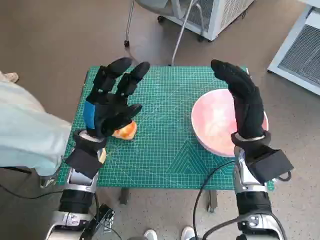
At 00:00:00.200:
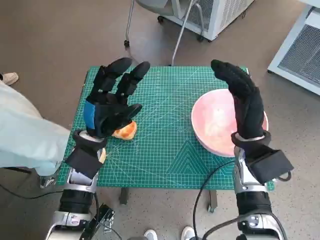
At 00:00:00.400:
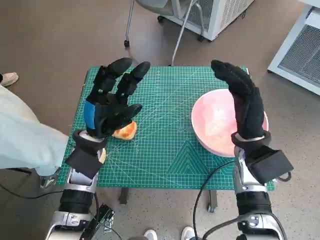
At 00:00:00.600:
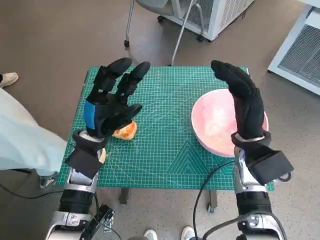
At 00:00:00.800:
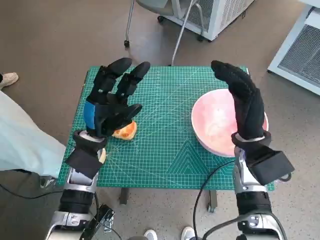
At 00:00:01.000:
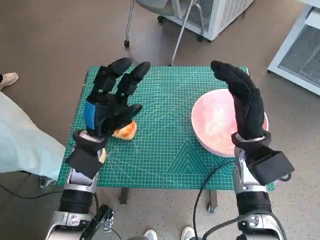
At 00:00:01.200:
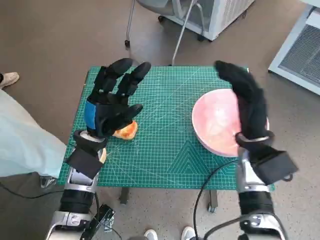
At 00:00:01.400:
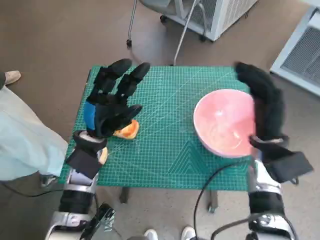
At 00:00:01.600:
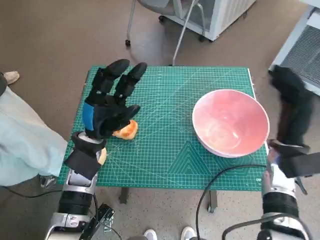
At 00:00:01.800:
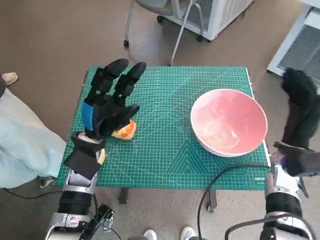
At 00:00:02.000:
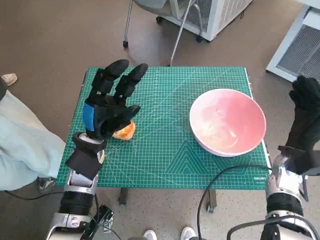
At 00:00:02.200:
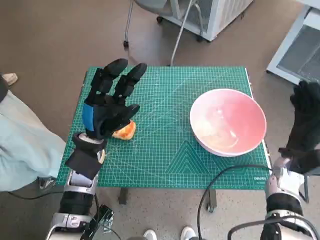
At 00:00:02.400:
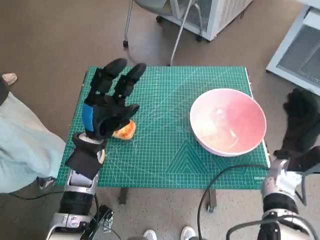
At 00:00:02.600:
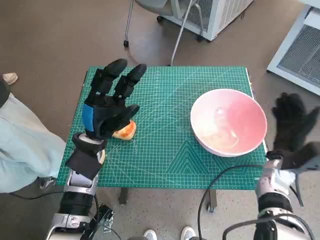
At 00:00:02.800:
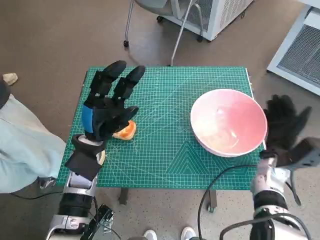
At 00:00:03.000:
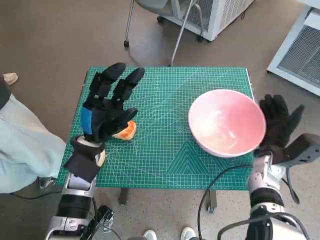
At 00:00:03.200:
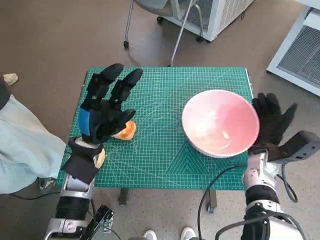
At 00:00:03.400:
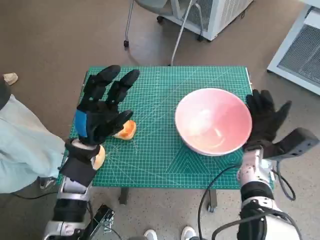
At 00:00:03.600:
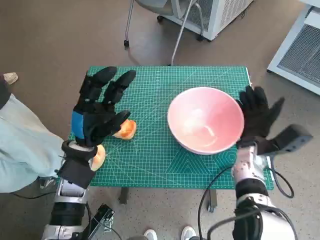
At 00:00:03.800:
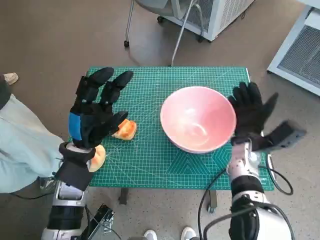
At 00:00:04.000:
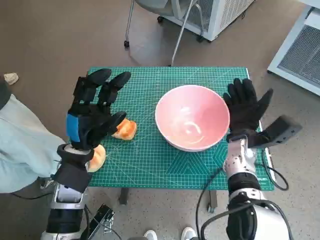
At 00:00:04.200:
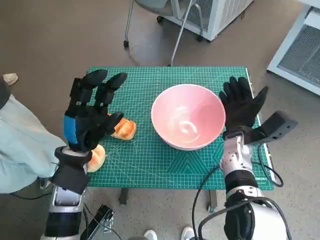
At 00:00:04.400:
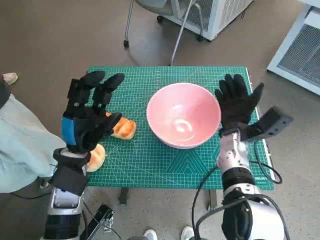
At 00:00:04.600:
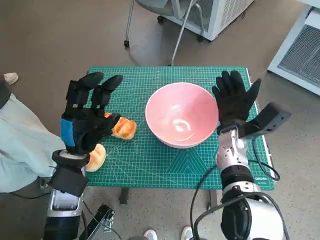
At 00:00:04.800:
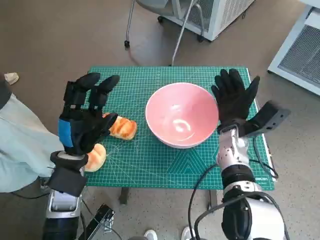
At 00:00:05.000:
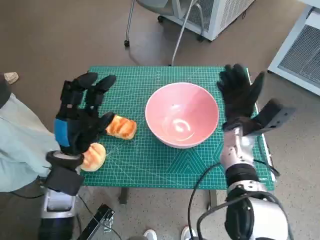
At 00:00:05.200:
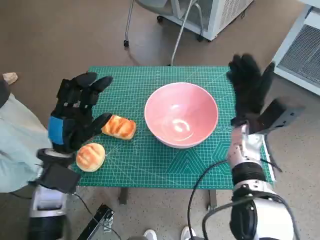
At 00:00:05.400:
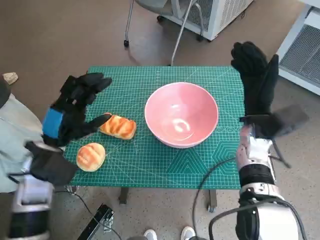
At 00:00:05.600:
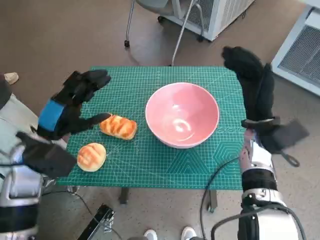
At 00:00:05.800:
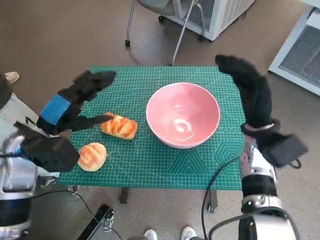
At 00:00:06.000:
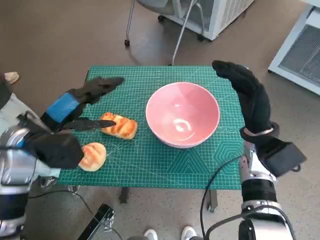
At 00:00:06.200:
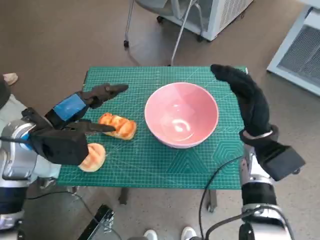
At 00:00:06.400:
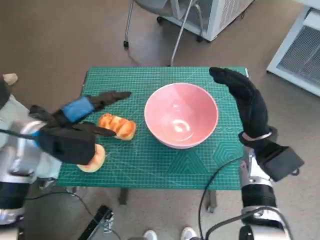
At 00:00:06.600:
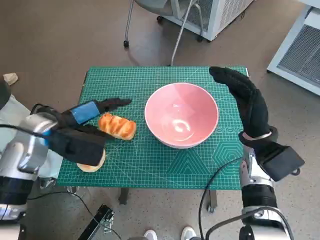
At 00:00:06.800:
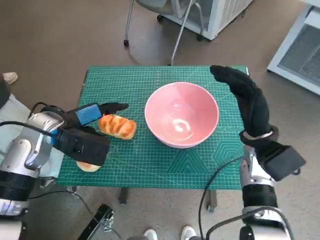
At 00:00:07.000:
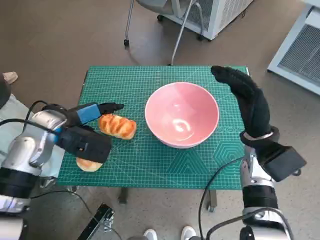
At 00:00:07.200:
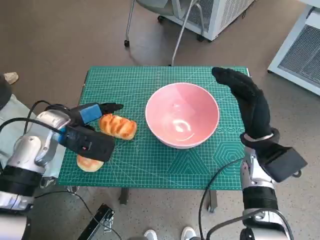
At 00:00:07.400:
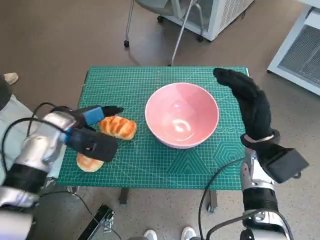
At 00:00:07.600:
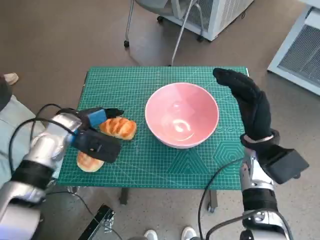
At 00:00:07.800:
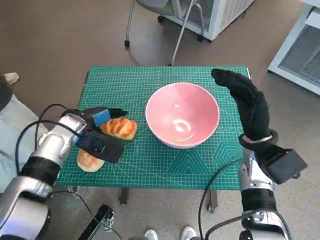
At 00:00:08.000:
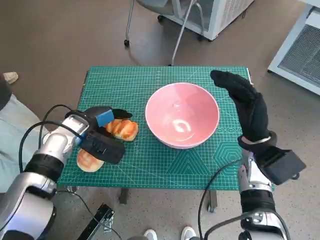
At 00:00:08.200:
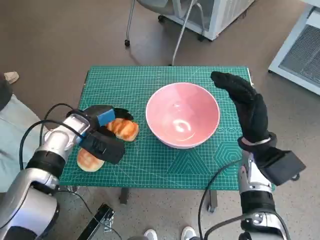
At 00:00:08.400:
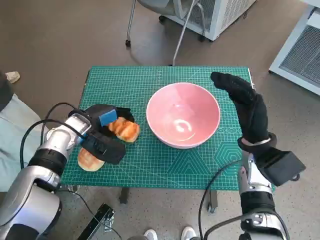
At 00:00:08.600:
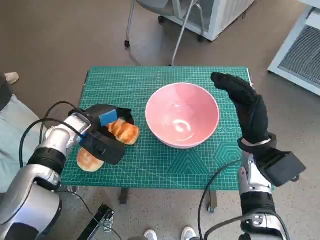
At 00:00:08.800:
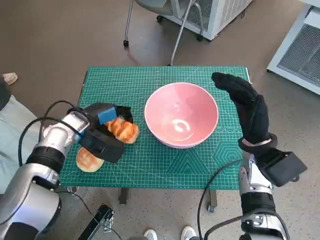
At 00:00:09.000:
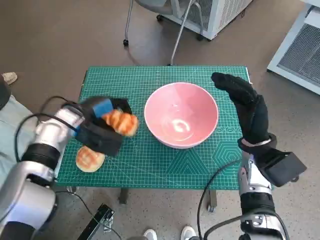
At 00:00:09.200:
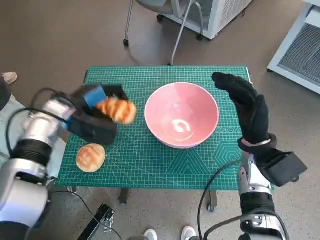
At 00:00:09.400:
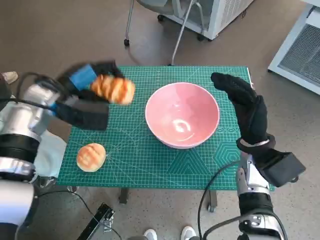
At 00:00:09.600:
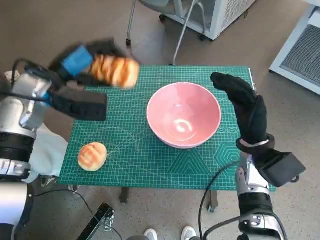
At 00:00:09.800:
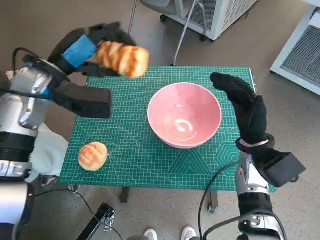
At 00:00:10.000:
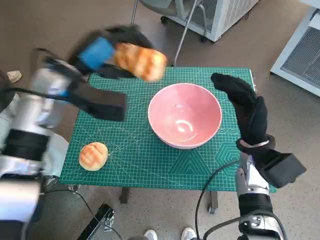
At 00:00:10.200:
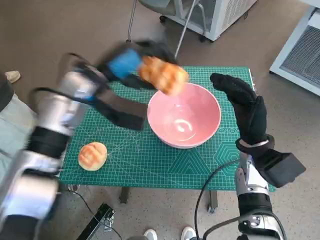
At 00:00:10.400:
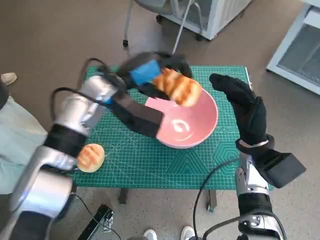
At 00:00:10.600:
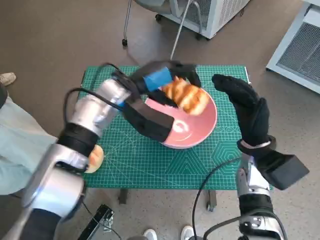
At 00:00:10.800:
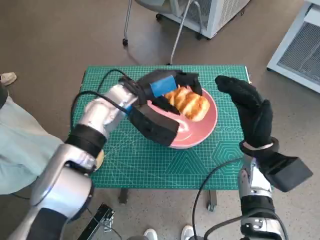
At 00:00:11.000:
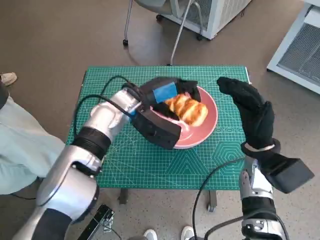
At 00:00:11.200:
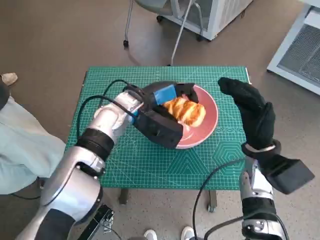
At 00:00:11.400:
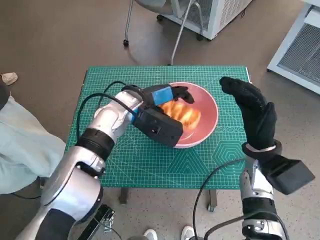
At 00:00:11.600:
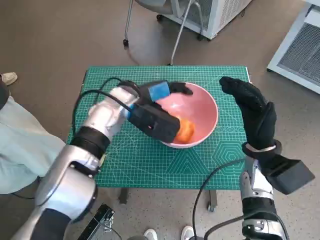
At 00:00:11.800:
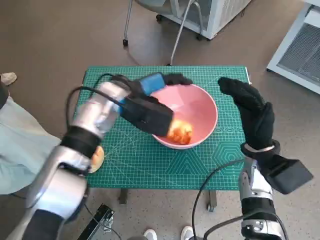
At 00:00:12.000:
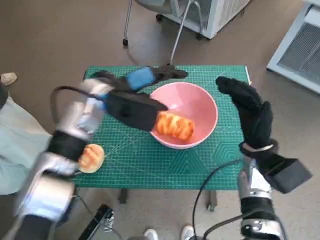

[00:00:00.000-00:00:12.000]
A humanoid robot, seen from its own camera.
Task of the whole recording: Push the bowl to the center of the table and put the bread into the bowl.
Step, 00:00:00.000 to 00:00:05.000: Move the pink bowl to the center of table with right hand.
Step, 00:00:05.200 to 00:00:08.000: Grasp the long bread with left hand.
Step, 00:00:08.200 to 00:00:11.800: Place the long bread in pink bowl with left hand.
00:00:01.600 to 00:00:03.000: The right hand travels downward by roughly 5 cm.
00:00:03.000 to 00:00:04.400: The right hand travels to the left by about 10 cm.
00:00:04.400 to 00:00:06.000: The right hand moves upward, about 5 cm, while the left hand moves upward and to the left, about 10 cm.
00:00:06.000 to 00:00:07.600: The left hand moves forward, roughly 5 cm.
00:00:07.600 to 00:00:09.000: The hands stay close to where they were, moving slightly.
00:00:09.000 to 00:00:10.400: The left hand shifts roughly 15 cm to the right and upward.

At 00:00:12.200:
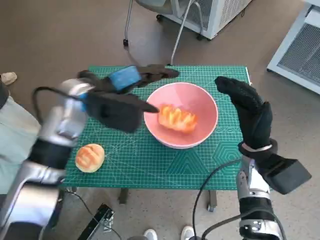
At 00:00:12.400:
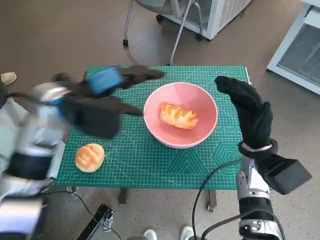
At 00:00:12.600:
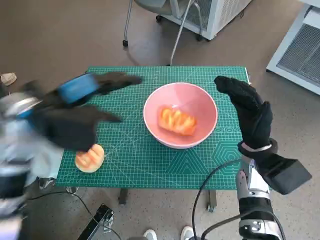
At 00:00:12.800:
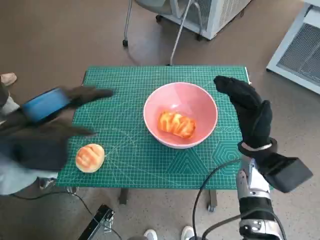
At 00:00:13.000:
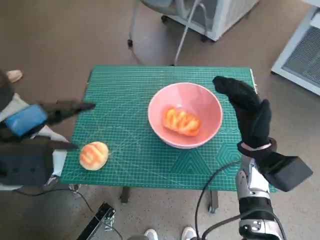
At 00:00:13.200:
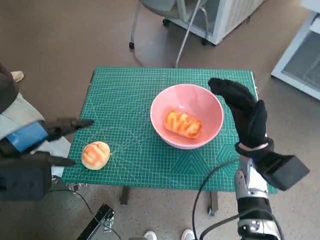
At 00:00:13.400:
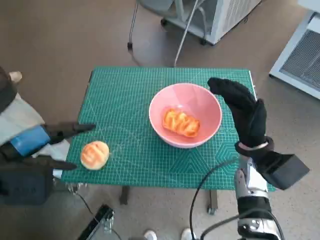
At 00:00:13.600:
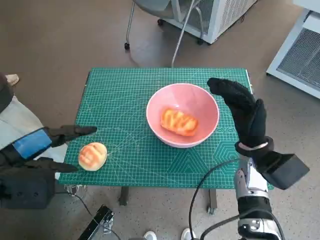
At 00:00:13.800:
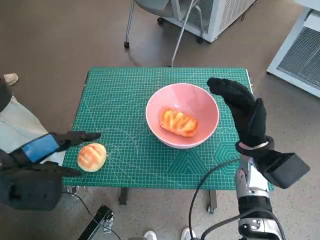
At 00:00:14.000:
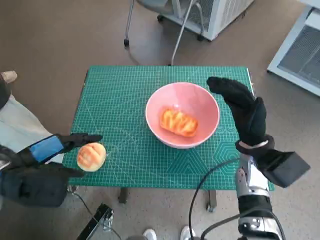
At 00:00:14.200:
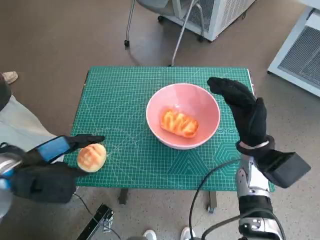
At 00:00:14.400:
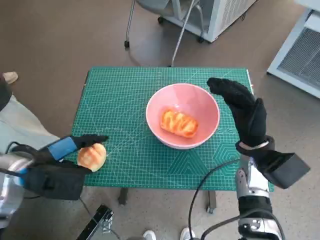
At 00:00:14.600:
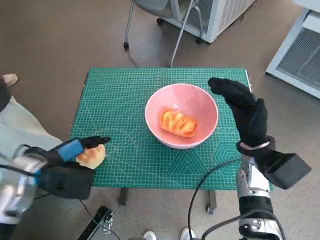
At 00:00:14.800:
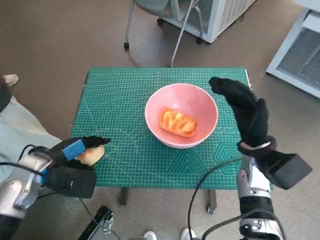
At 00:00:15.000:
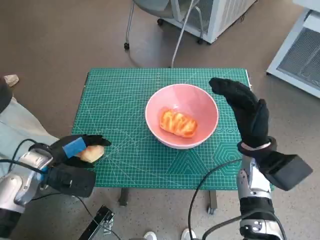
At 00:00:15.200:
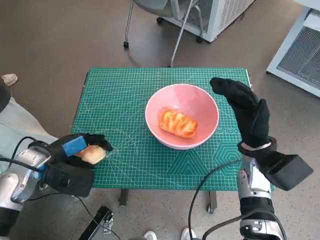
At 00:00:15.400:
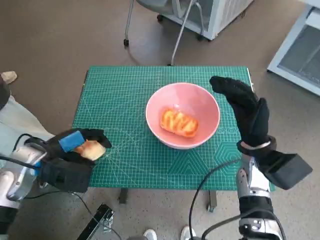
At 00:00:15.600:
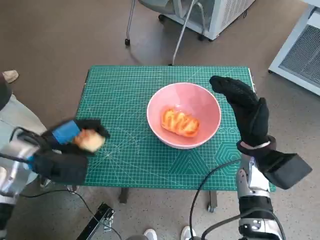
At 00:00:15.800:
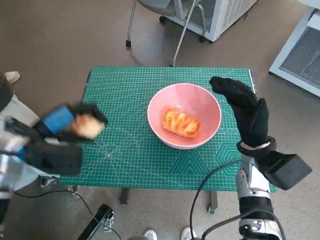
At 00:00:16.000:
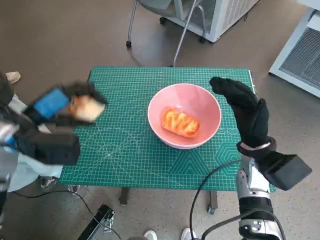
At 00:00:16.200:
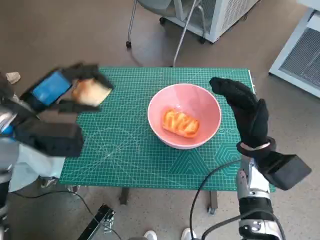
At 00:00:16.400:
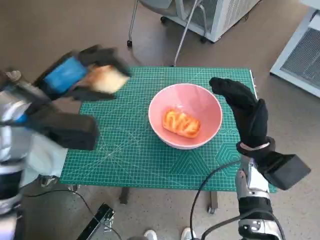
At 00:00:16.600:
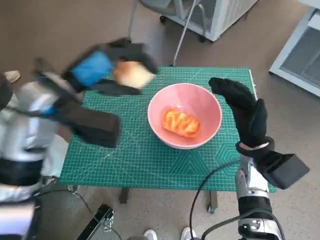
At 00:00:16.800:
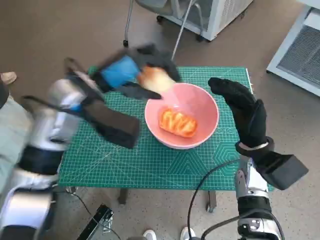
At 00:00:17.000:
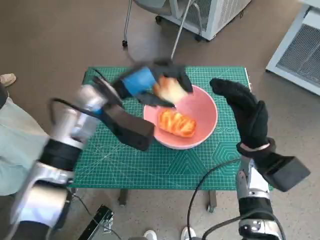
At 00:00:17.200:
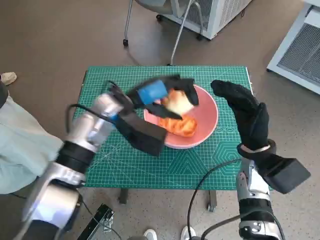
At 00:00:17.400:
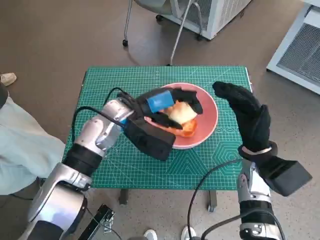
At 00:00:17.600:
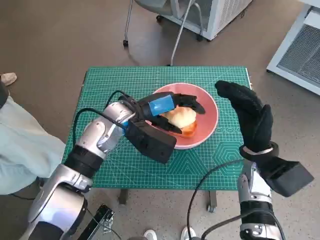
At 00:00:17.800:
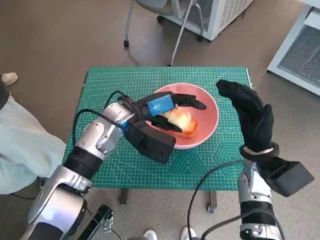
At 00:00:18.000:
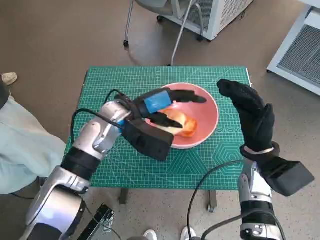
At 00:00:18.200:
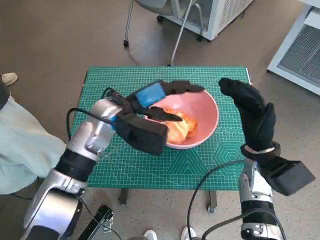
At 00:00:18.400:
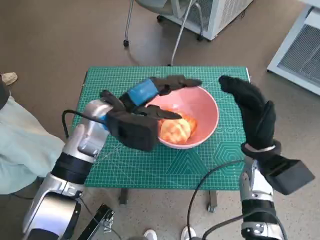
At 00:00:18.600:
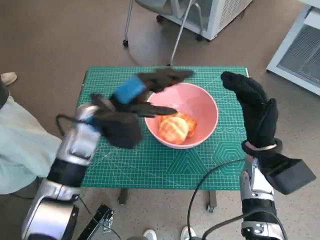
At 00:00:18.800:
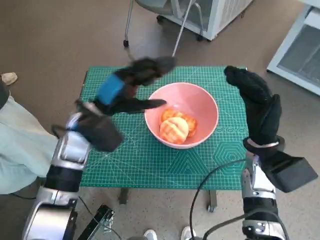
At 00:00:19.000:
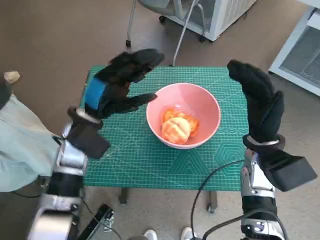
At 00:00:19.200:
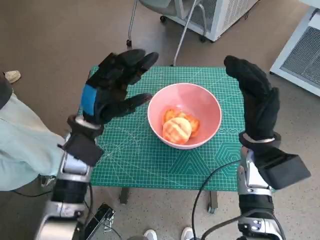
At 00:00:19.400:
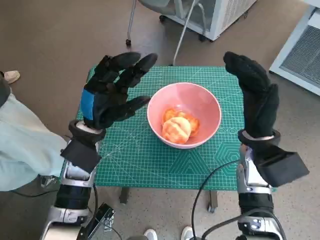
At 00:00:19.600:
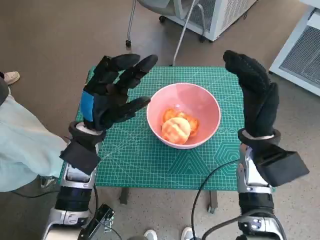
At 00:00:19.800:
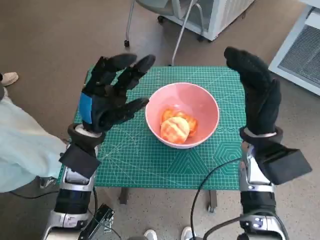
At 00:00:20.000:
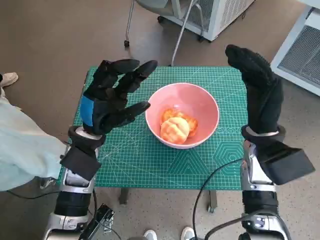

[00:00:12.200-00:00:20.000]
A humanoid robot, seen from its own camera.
Task of the whole recording: Push the bowl to the center of the table and put the bread into the bowl.
Step, 00:00:12.200 to 00:00:14.800: Grasp the round bread with left hand.
Step, 00:00:15.000 to 00:00:18.200: Place the round bread in pink bowl with left hand.
00:00:12.200 to 00:00:13.800: The left hand heads backward and to the left, covering roughly 20 cm.
00:00:13.800 to 00:00:15.400: The left hand goes roughly 10 cm downward and forward.
00:00:15.400 to 00:00:16.800: The left hand moves upward, to the right and forward, approximately 20 cm.
00:00:16.800 to 00:00:18.400: The left hand travels downward by roughly 5 cm.
00:00:18.400 to 00:00:20.000: The left hand moves about 10 cm.
